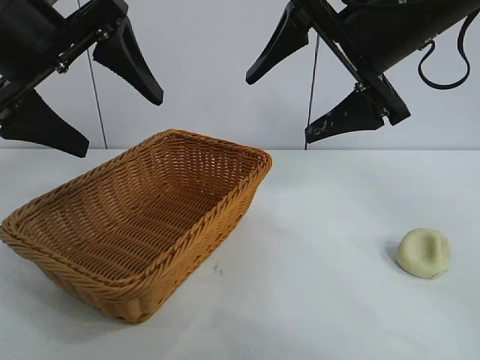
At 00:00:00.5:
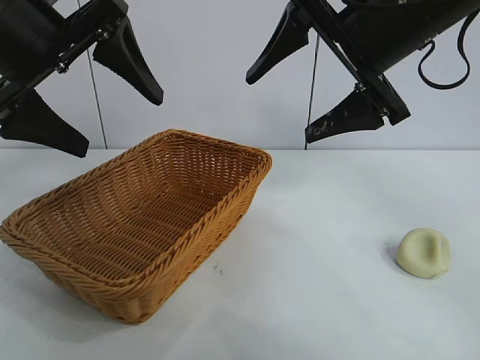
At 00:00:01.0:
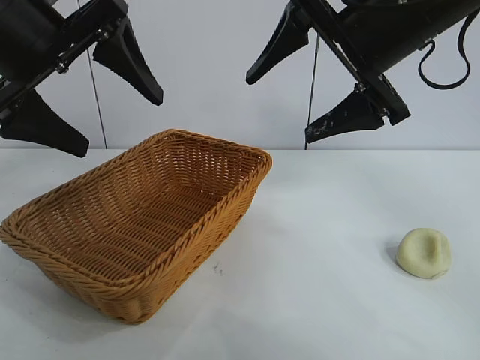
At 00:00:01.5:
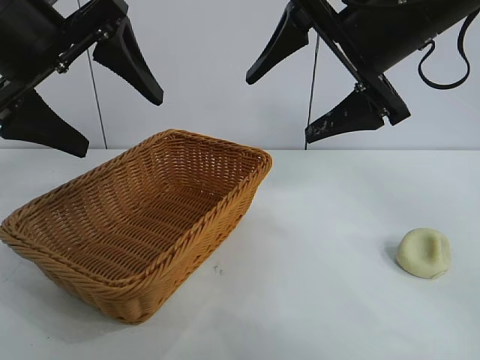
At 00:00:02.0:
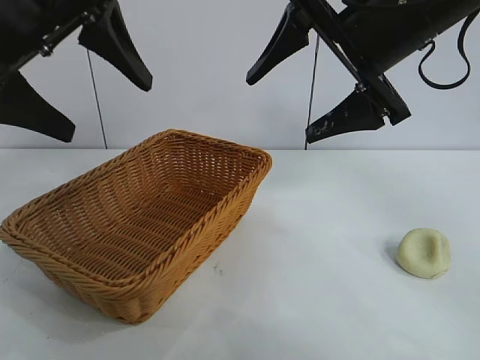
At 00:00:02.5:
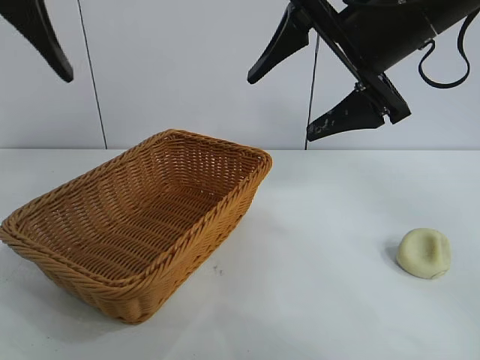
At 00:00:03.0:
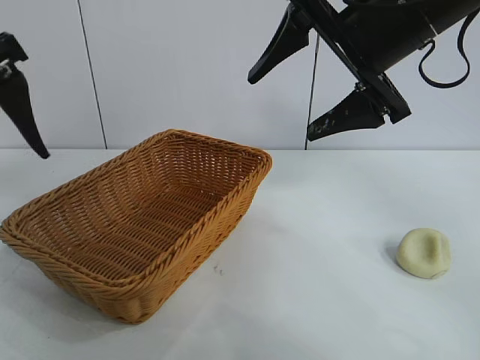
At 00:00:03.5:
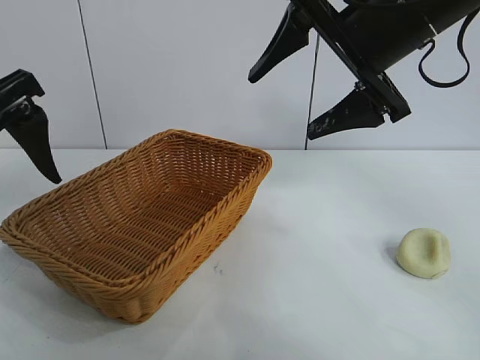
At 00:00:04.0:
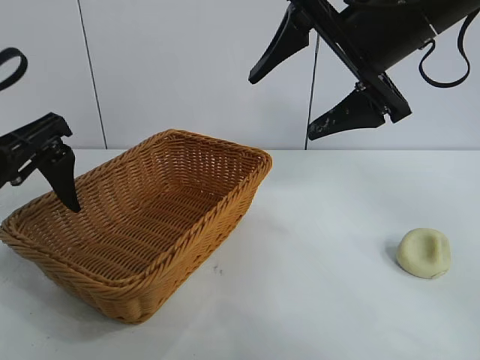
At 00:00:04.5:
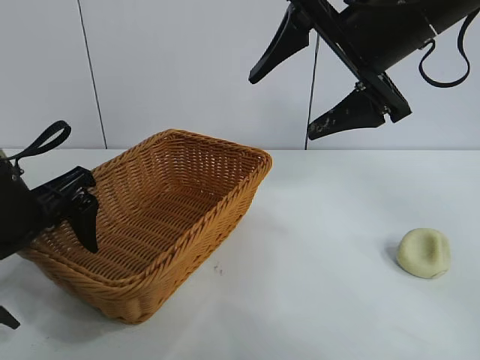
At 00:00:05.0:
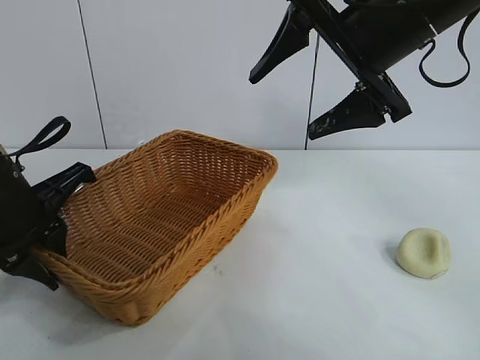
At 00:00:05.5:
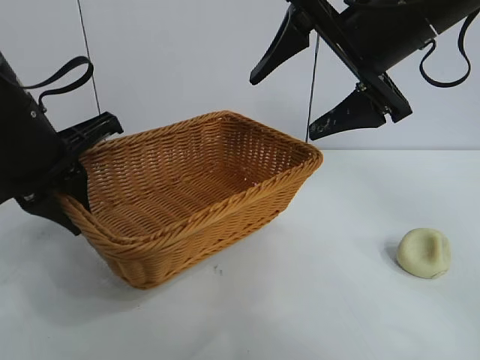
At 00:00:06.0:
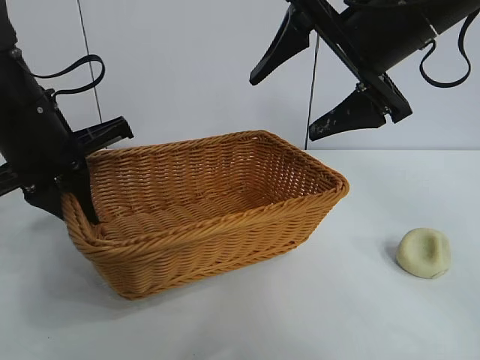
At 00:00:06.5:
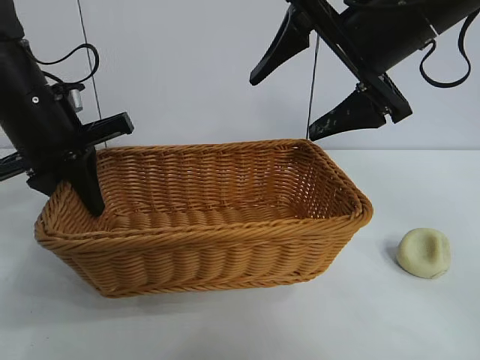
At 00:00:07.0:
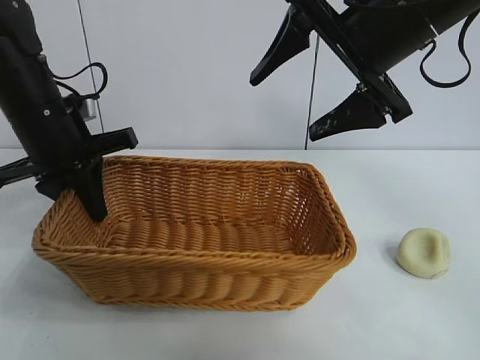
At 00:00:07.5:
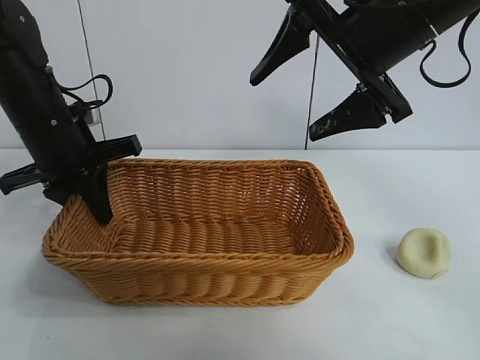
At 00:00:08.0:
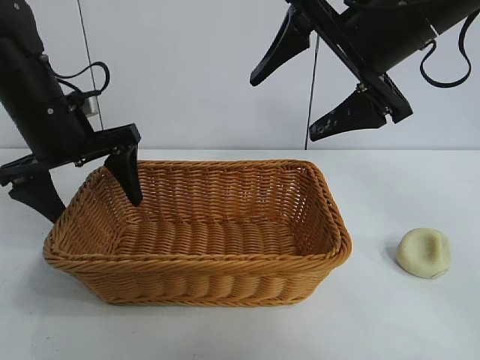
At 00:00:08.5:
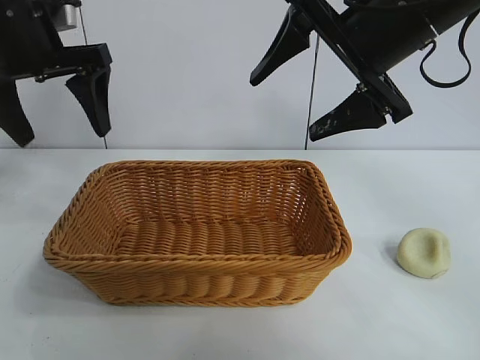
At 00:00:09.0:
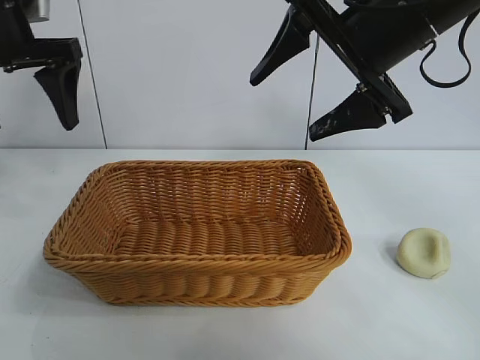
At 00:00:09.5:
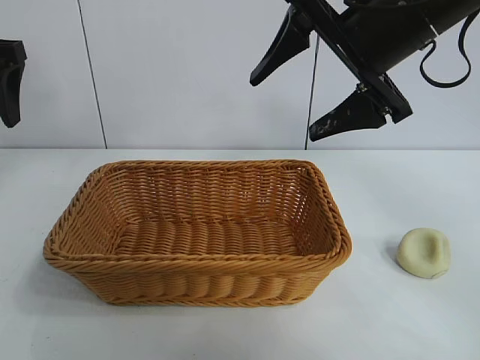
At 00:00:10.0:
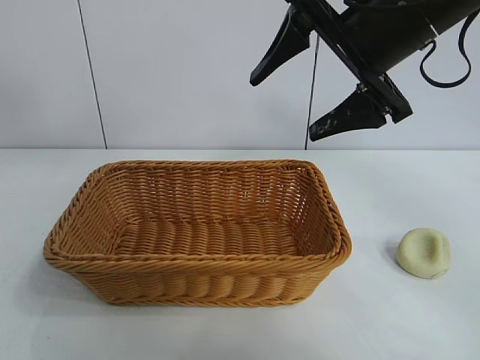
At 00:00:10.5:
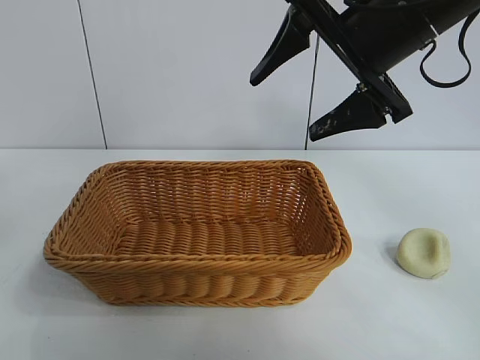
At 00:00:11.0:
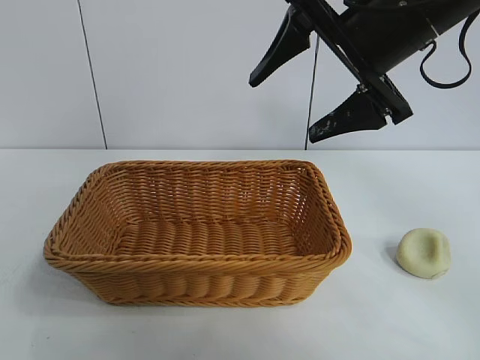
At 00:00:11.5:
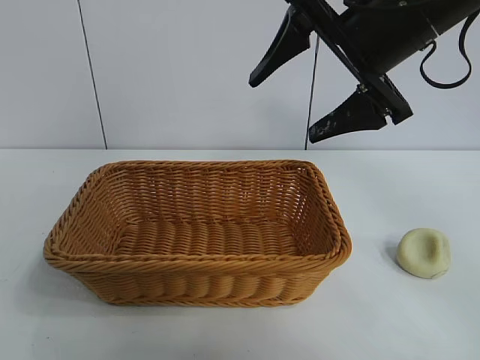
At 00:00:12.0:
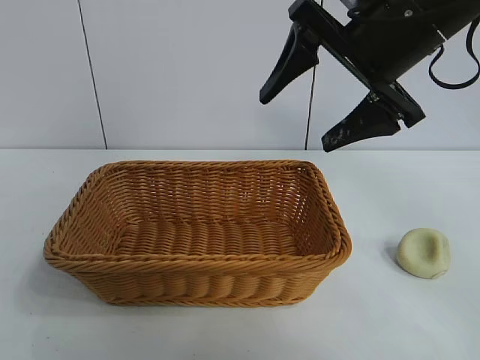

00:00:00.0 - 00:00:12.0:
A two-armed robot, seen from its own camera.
Task of the whole recording: pick up the egg yolk pastry and put it into the basket.
Step, 00:00:02.0 - 00:00:05.0: Grasp the basket with left gripper.
Step, 00:00:05.5 - 00:00:07.5: Place the basket in the center of view with left gripper.

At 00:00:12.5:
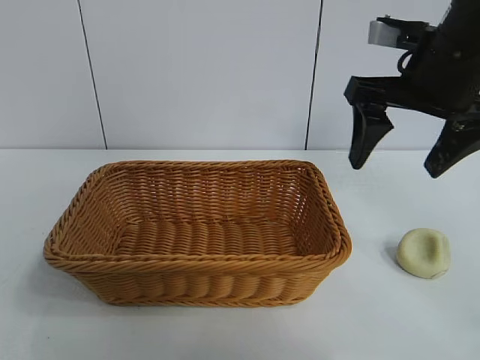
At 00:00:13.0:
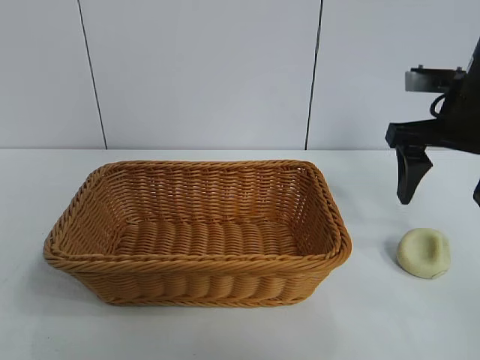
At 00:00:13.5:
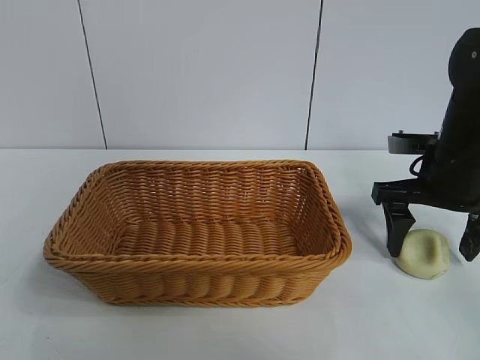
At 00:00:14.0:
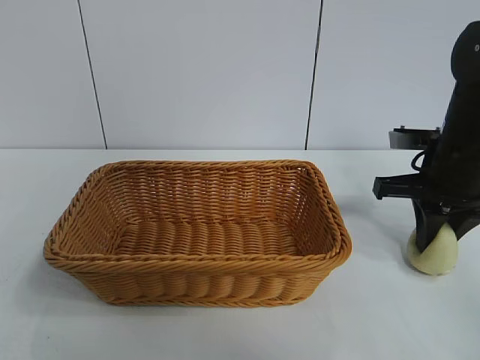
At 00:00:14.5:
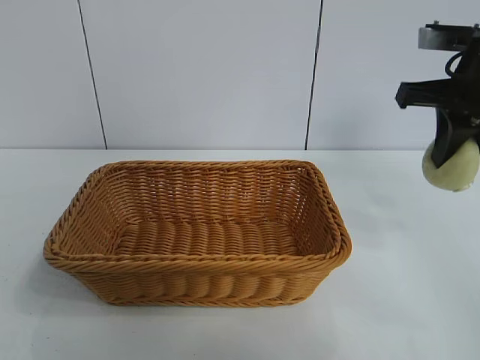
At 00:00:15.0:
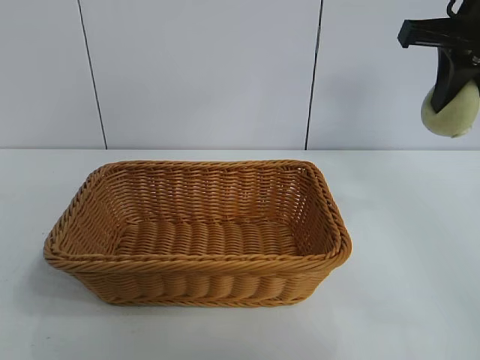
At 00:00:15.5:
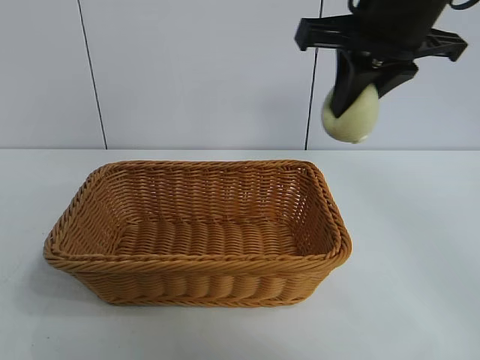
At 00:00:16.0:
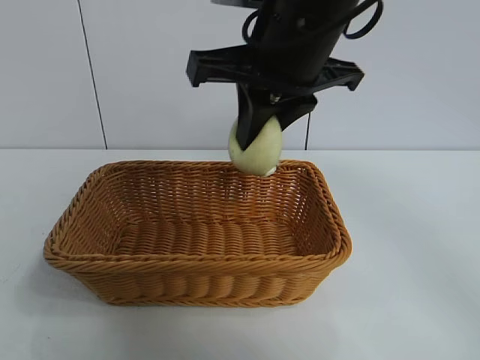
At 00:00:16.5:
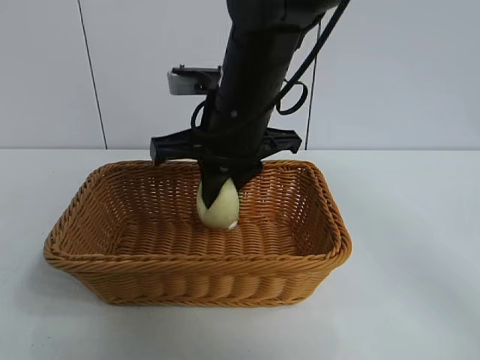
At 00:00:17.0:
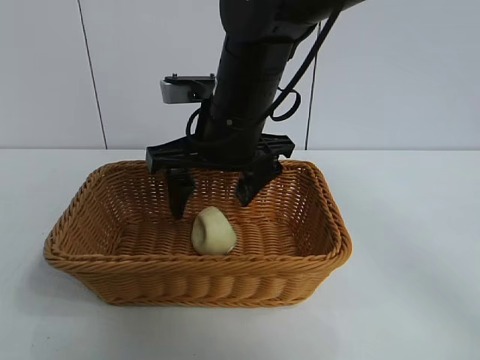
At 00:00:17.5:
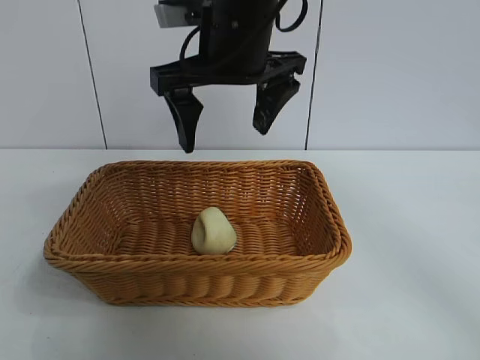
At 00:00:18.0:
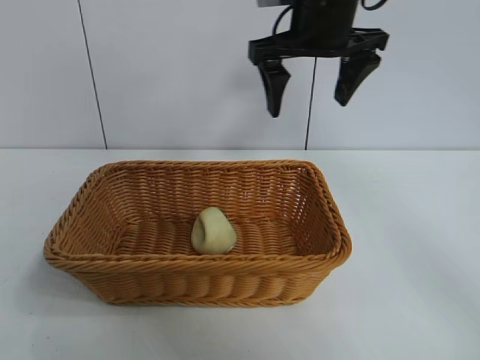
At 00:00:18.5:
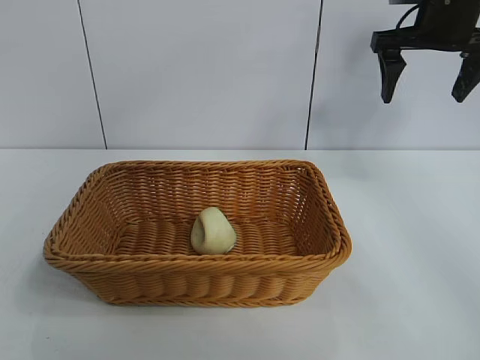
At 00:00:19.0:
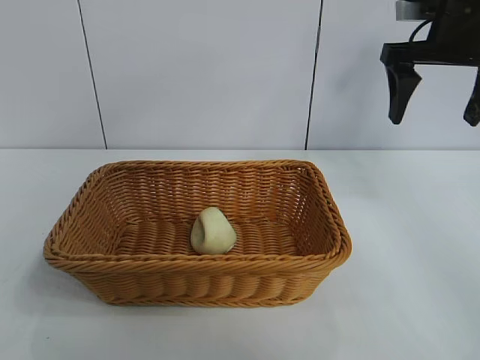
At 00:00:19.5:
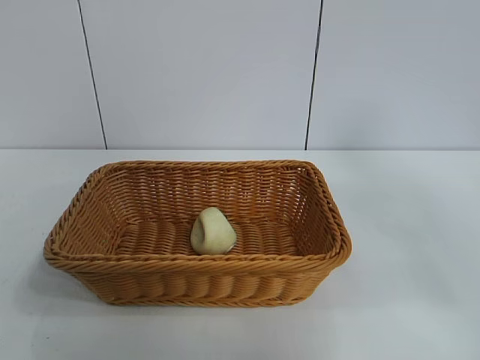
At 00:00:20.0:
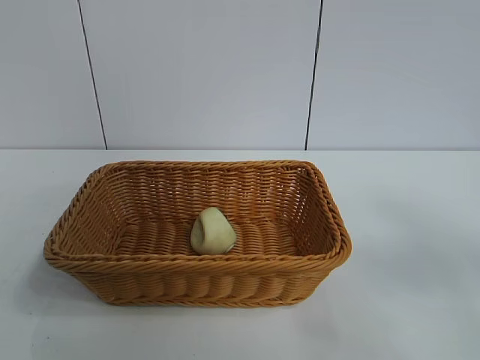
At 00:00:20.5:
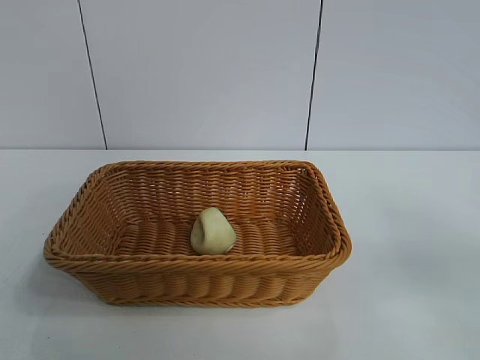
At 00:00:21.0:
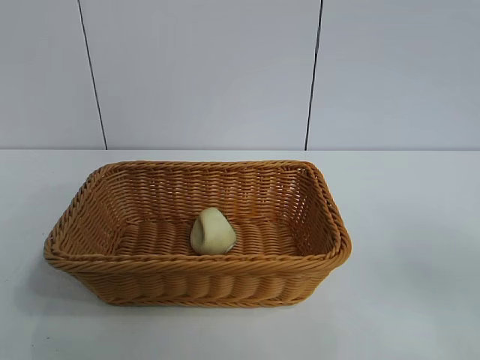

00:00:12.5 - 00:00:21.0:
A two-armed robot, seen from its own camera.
Task of the whole recording: pick up the egg yolk pastry and put it into the basket.
Step, 00:00:14.5 - 00:00:17.0: Place the egg yolk pastry in the basket with right gripper.
